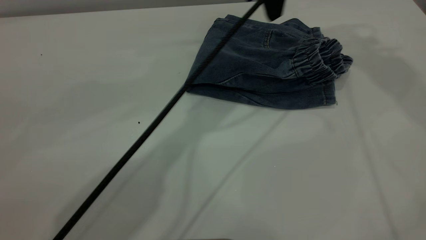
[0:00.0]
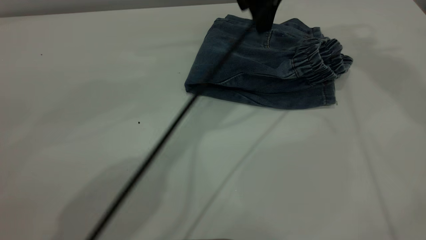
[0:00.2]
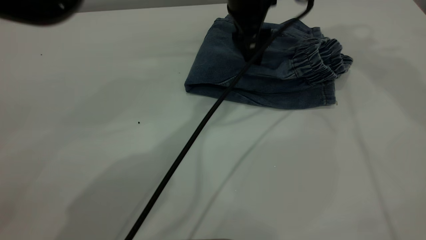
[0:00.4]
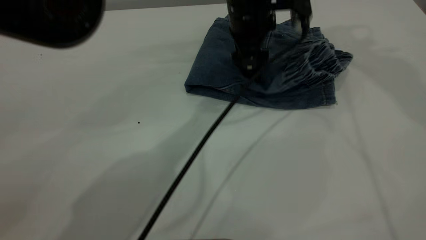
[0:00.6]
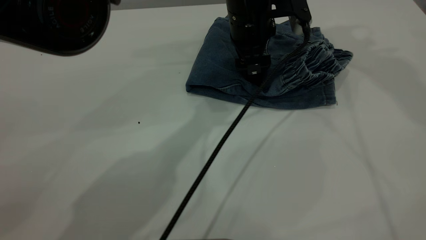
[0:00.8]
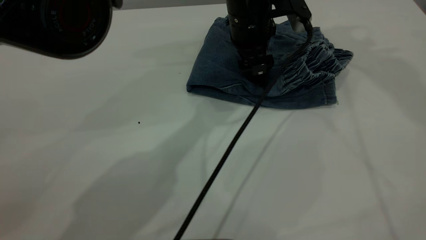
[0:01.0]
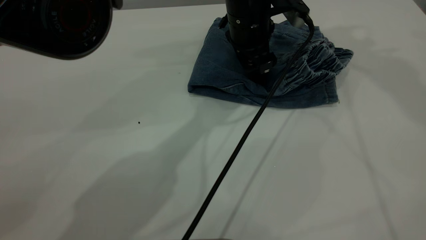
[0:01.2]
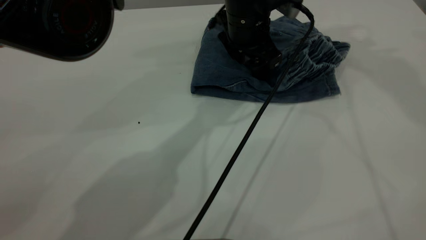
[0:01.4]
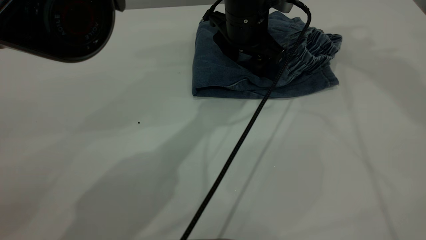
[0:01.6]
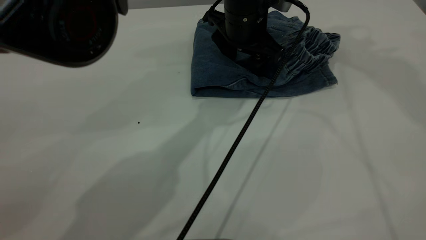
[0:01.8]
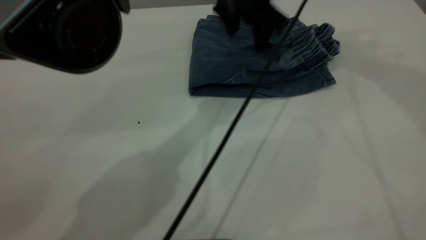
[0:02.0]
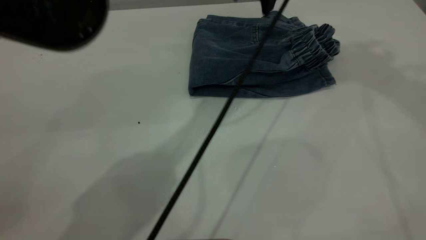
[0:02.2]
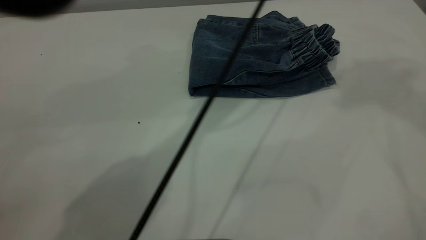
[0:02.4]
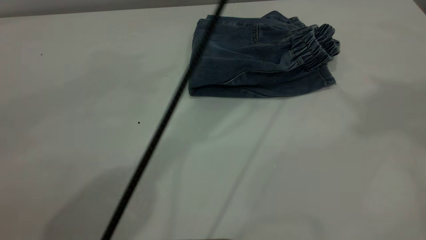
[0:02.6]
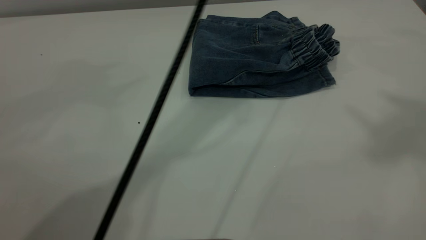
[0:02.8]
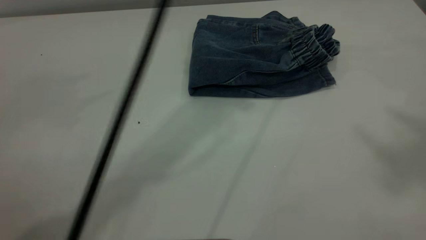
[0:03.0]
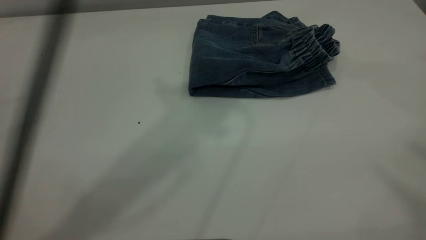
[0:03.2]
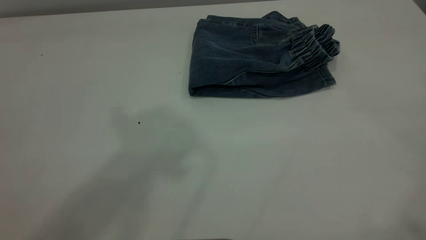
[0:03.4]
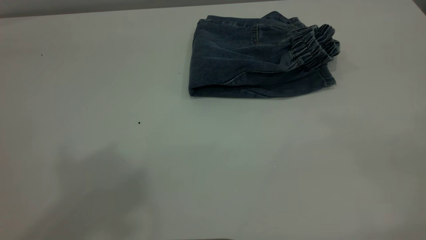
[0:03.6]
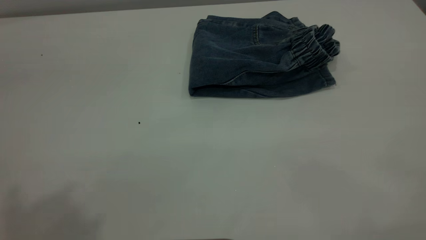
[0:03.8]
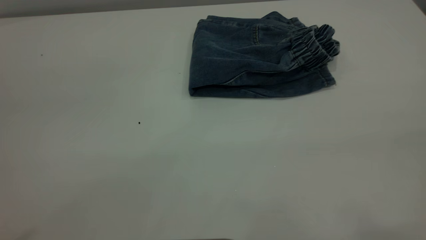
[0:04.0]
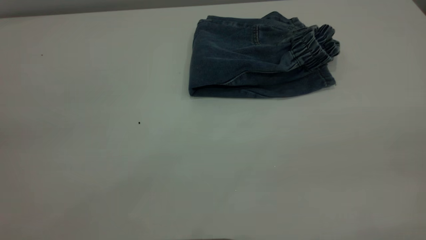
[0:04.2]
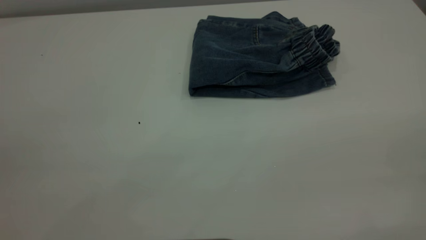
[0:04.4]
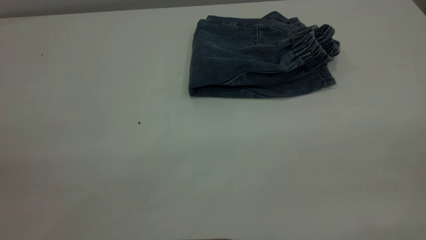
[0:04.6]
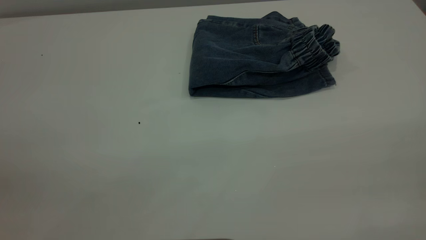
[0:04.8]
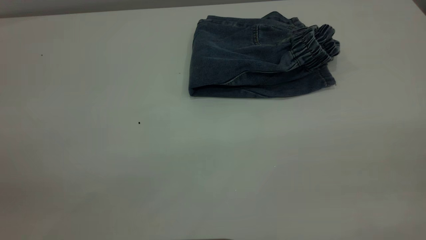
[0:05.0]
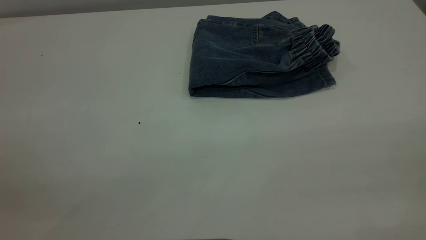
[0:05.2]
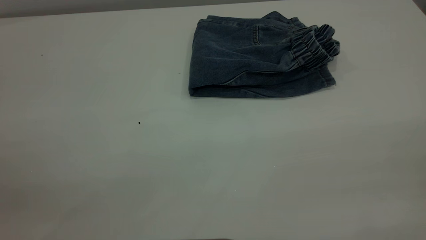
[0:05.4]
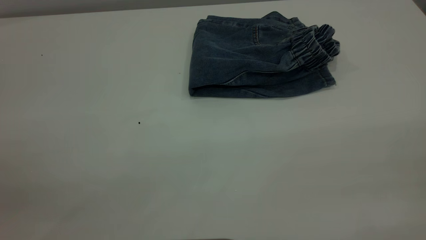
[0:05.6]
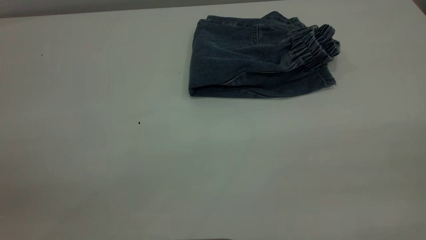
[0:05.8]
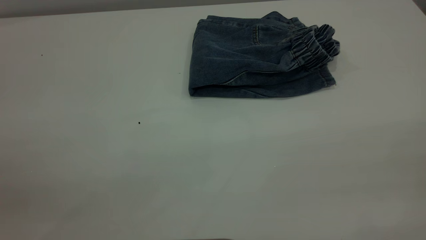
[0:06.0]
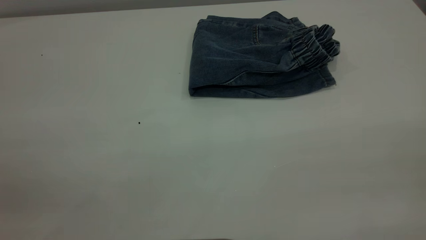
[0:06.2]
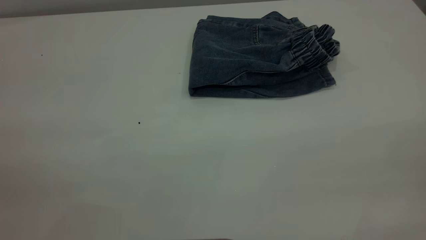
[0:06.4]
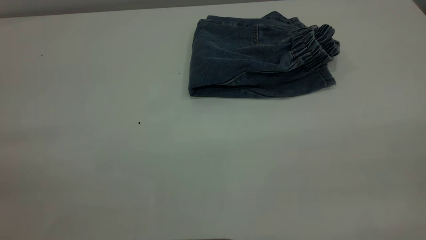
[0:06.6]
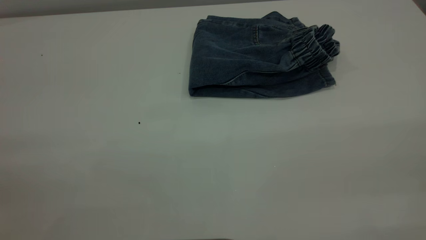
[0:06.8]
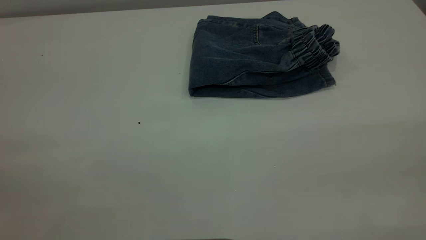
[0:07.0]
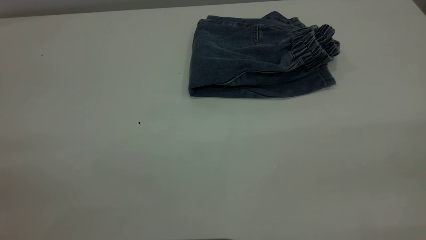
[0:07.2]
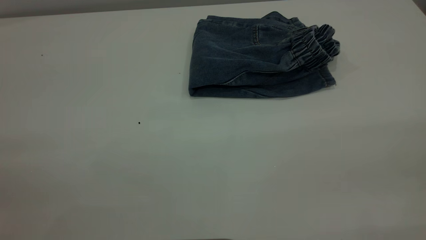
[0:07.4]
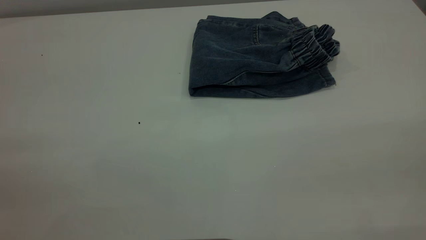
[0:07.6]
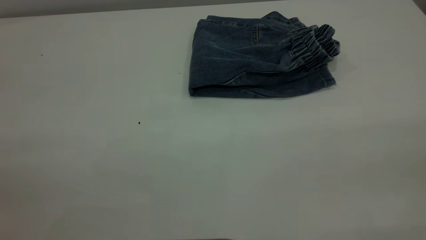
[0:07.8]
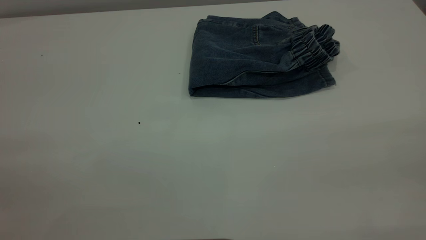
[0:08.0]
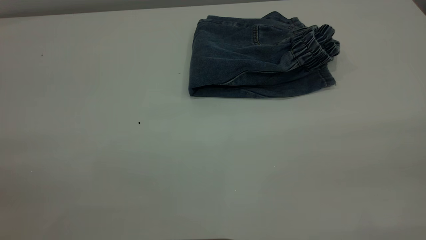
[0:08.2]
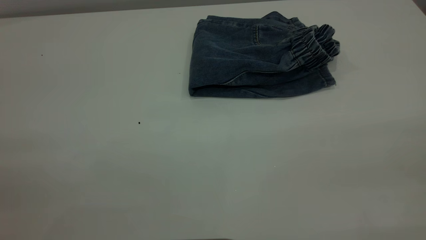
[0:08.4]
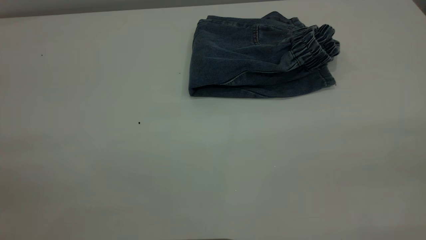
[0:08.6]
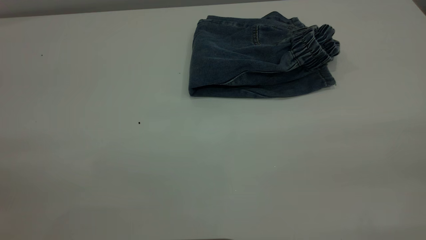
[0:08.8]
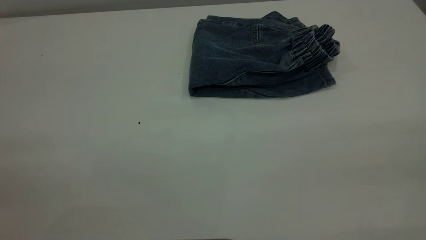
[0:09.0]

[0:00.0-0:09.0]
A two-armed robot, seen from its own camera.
0:00.0 to 0:01.6: The left gripper moves downward, about 10 cm.
0:01.6 to 0:03.0: The right gripper shifts some 35 cm backward and upward, while the left gripper goes approximately 30 cm upward.
0:03.0 to 0:04.4: The left gripper goes some 40 cm backward and to the left, while the right gripper travels downward and backward by about 35 cm.
